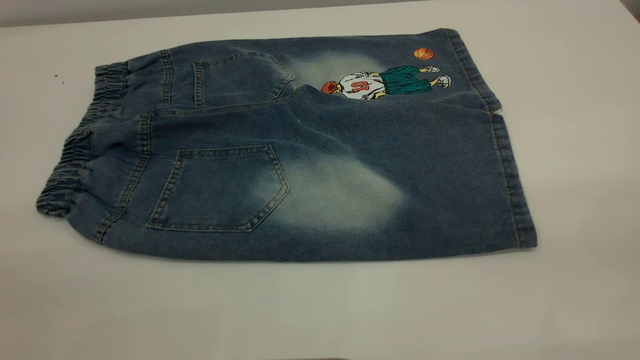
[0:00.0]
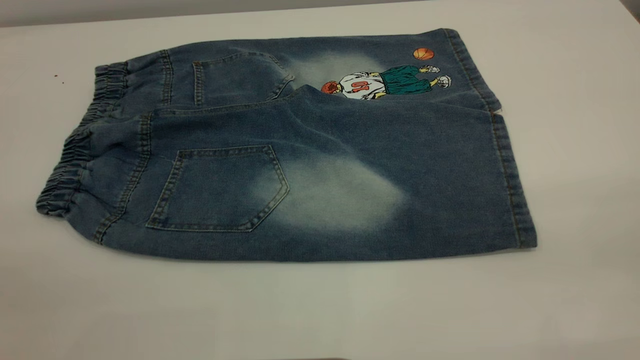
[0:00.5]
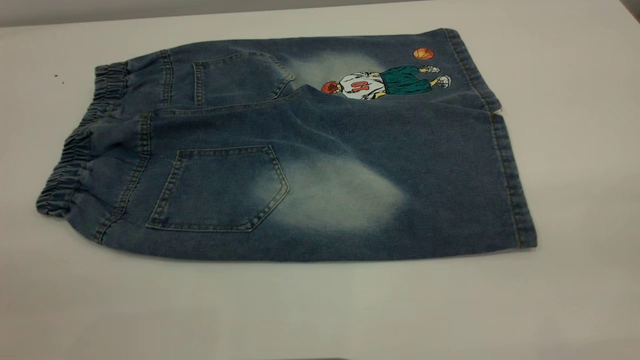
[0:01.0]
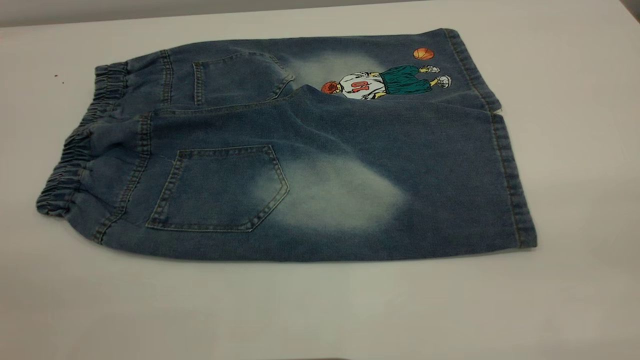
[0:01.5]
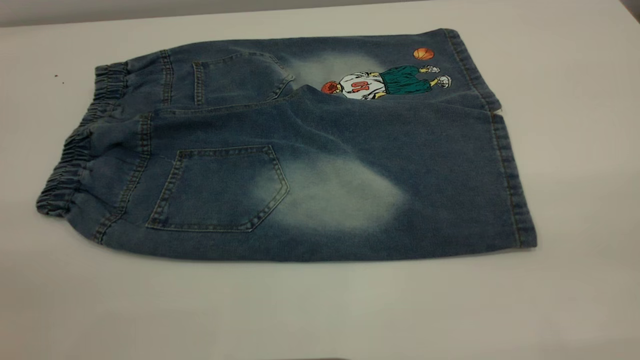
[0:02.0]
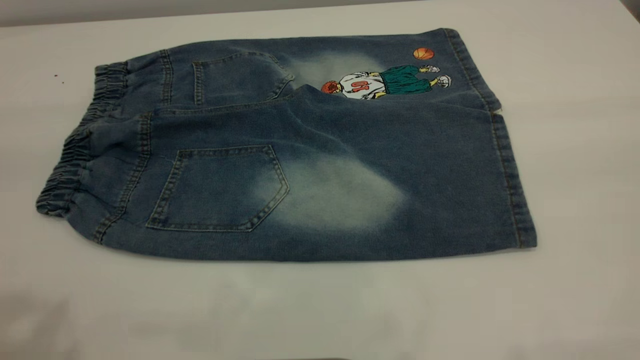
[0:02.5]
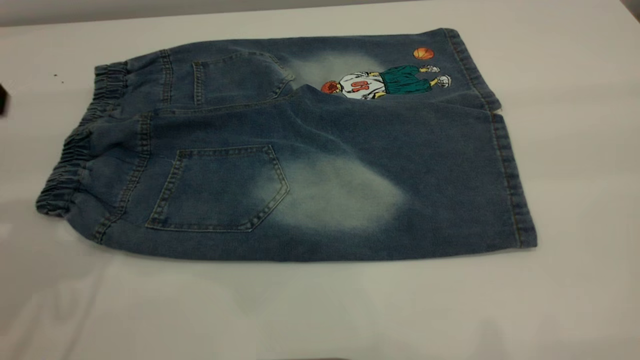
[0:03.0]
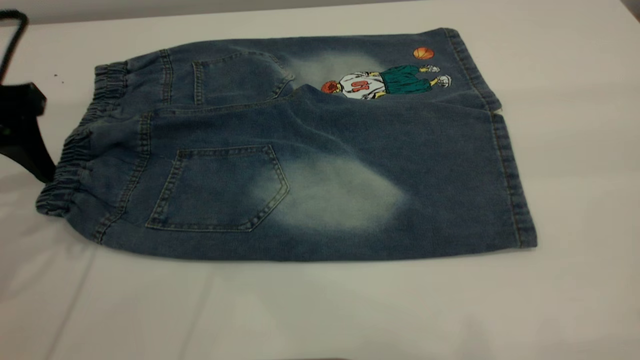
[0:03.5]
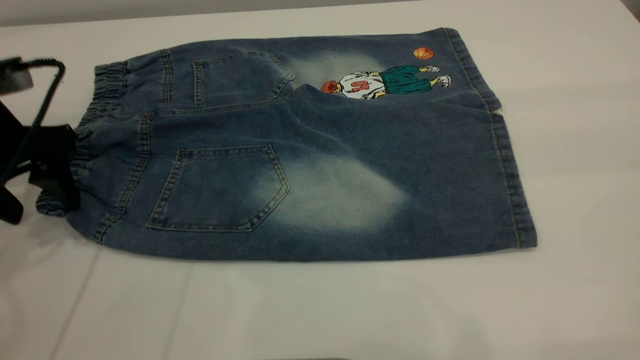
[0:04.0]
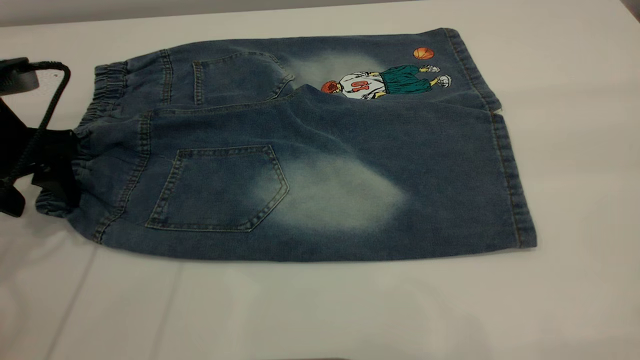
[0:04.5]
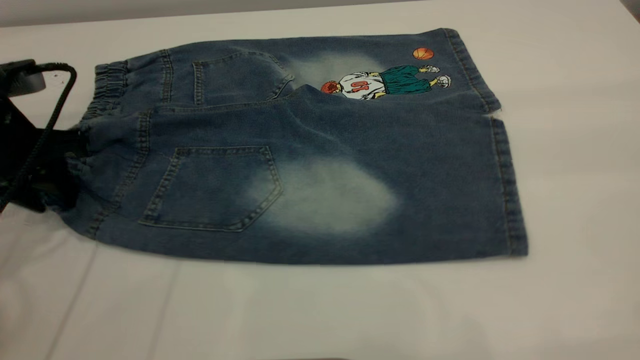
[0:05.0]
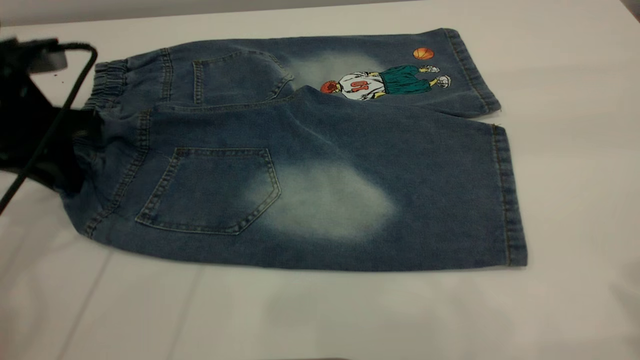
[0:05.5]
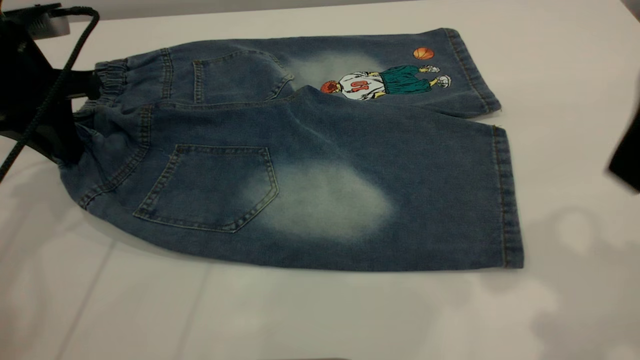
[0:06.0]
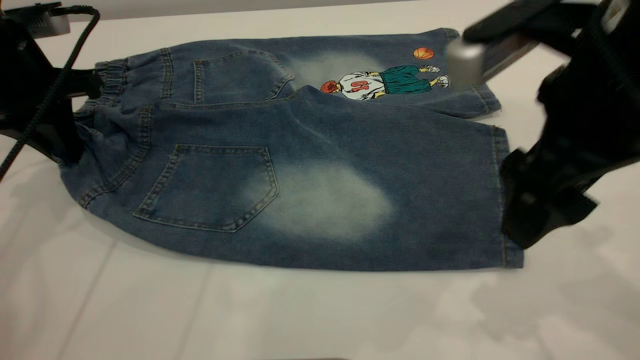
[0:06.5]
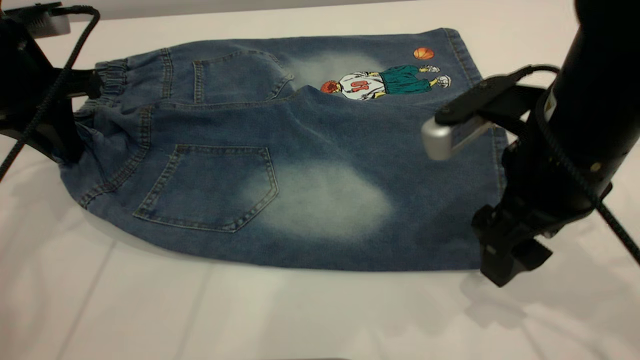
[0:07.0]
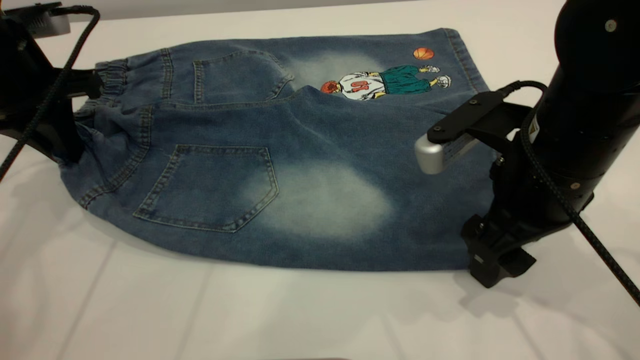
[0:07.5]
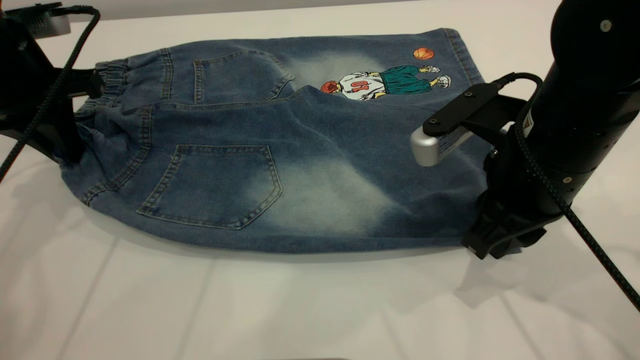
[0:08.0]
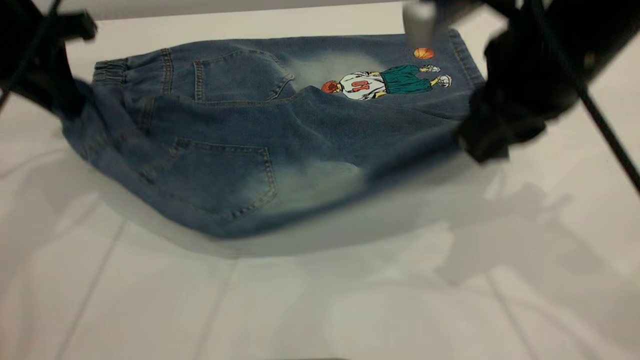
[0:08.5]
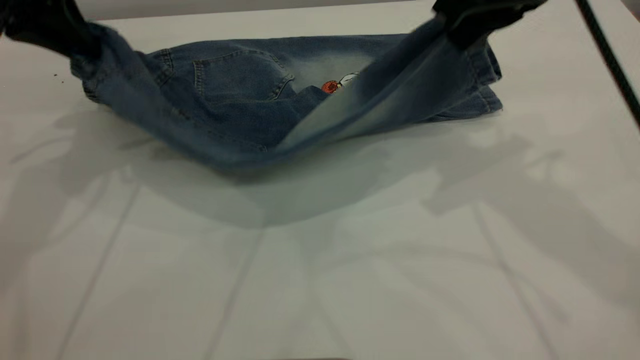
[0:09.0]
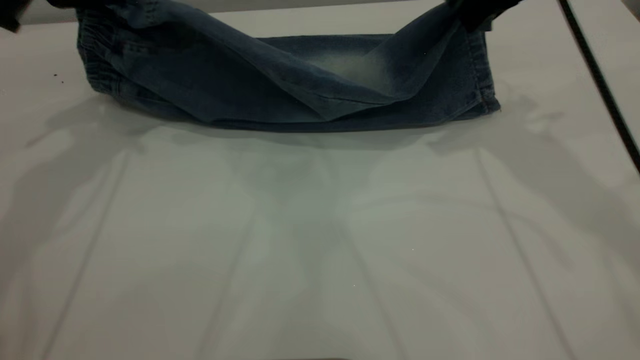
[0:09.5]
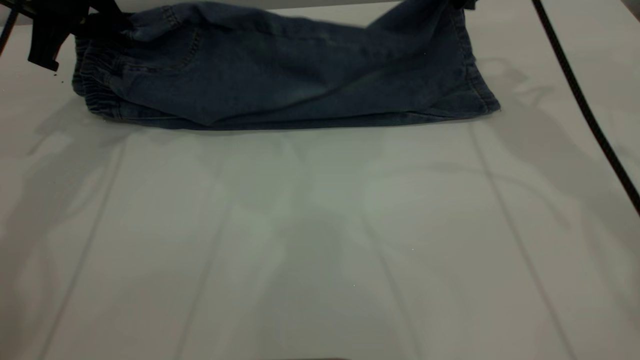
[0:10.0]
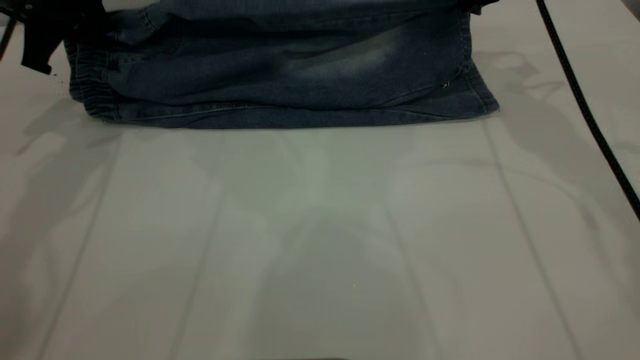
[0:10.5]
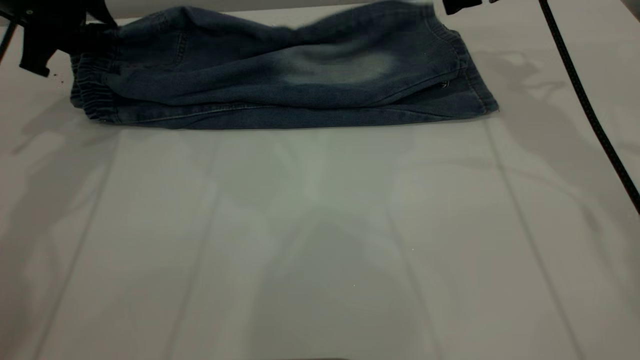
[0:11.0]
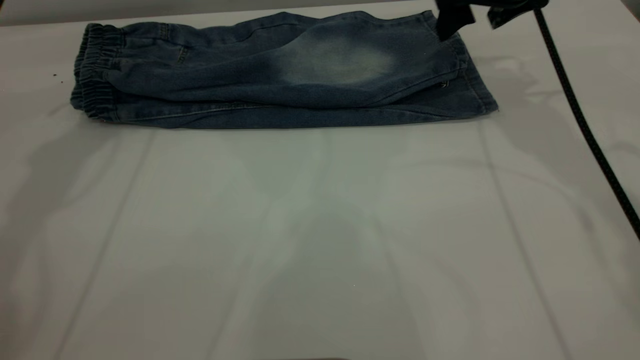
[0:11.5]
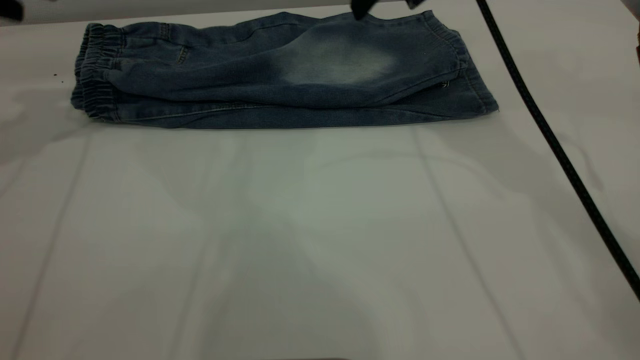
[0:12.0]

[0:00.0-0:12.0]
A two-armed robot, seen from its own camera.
Step, 0:00.0 to 0:11.5: Fold the bottom of the pants upward.
0:00.0 to 0:02.0: Neither gripper changes place.
0:02.0 to 0:04.0: The left gripper moves forward and downward, roughly 35 cm.
0:04.0 to 0:06.0: The left gripper shifts some 5 cm forward, and closes up; the right gripper travels forward, downward and to the left by approximately 15 cm.
0:06.0 to 0:08.0: The right gripper is displaced downward by some 15 cm, and closes.
0:08.0 to 0:10.0: The left gripper is displaced forward by roughly 5 cm; the right gripper goes about 20 cm forward and upward.
0:10.0 to 0:12.0: The right gripper is displaced to the left by some 10 cm, and opens. The left gripper travels to the left and upward by some 10 cm, and opens its fingers.

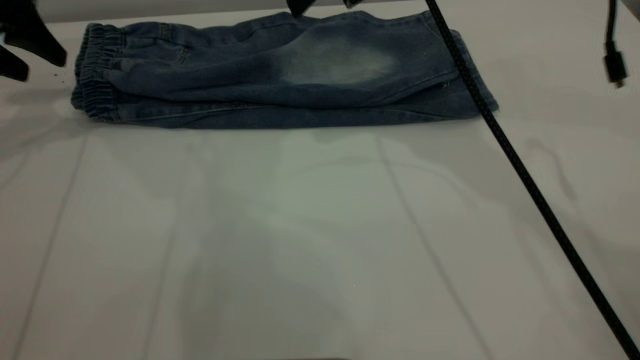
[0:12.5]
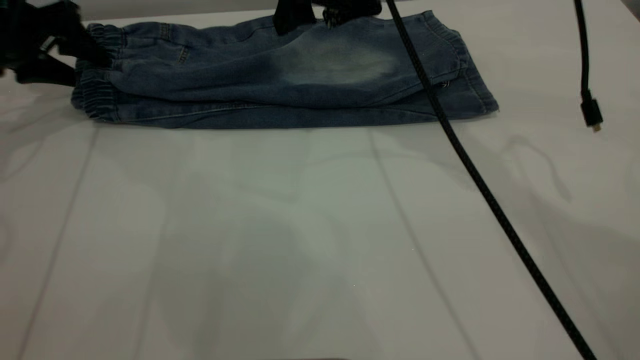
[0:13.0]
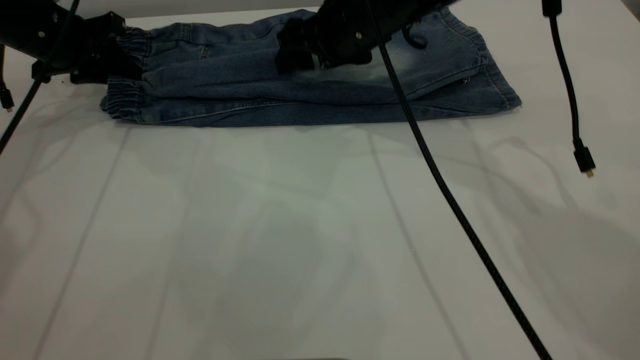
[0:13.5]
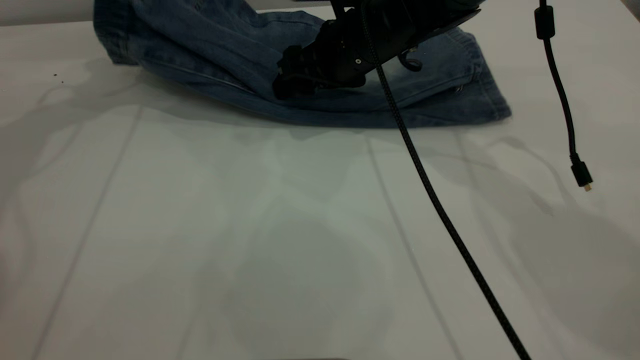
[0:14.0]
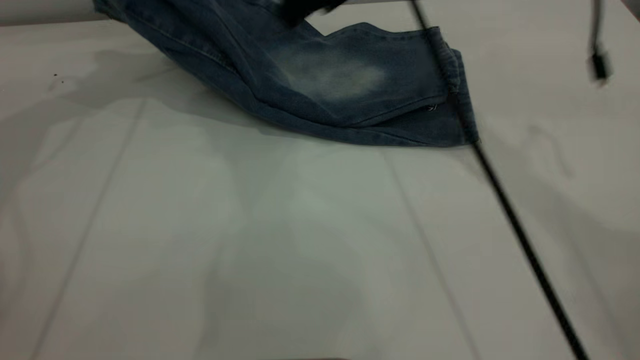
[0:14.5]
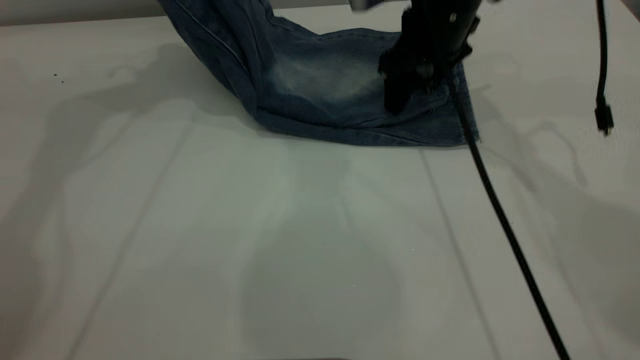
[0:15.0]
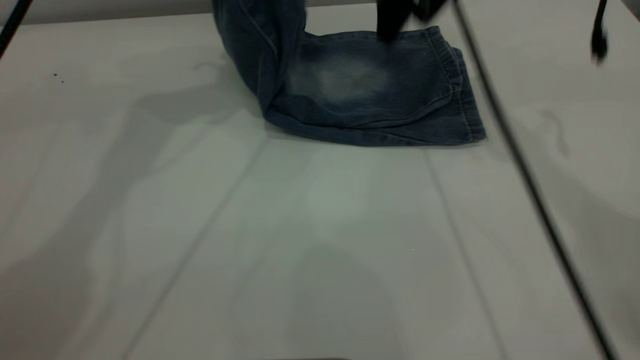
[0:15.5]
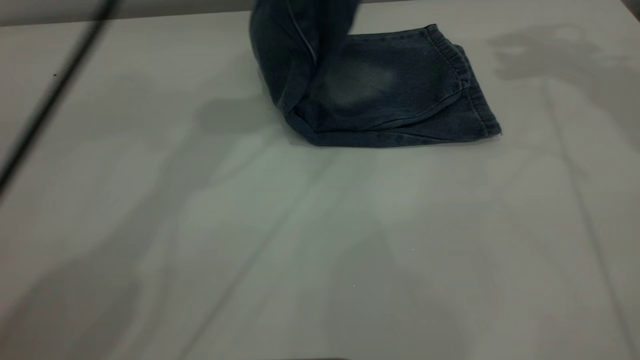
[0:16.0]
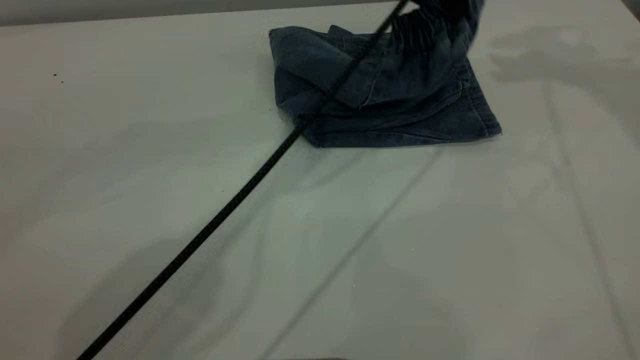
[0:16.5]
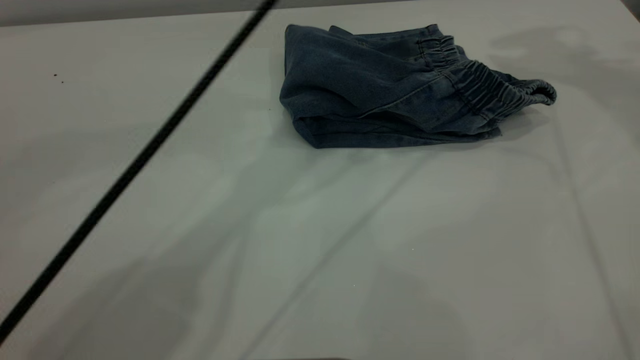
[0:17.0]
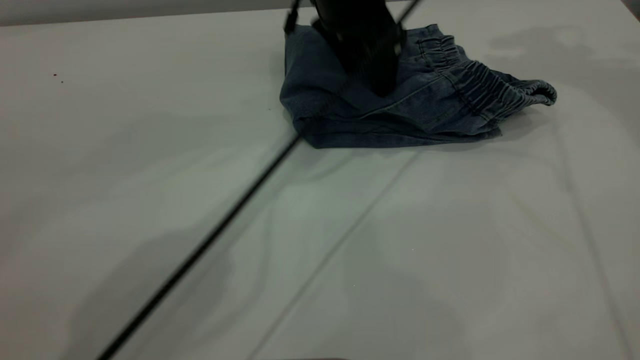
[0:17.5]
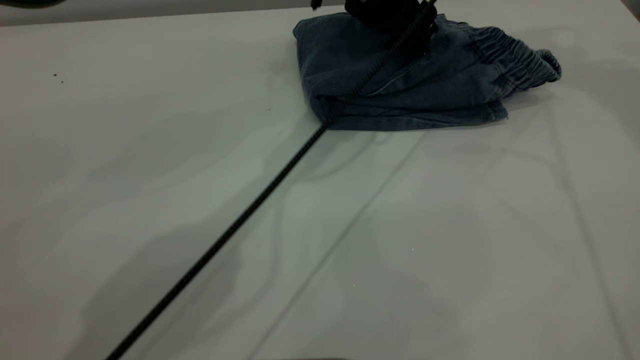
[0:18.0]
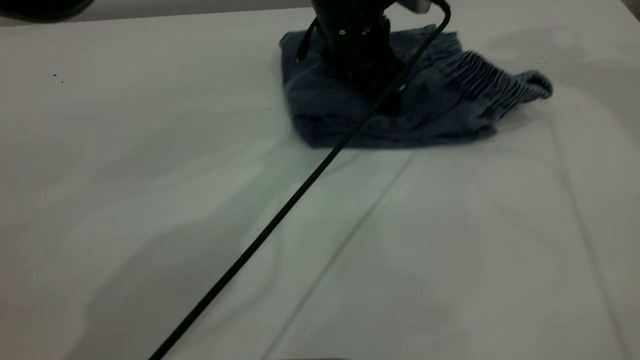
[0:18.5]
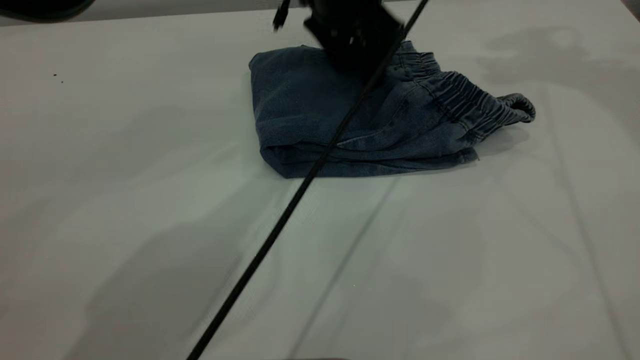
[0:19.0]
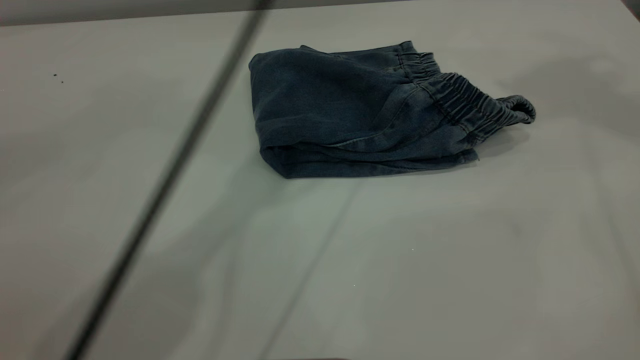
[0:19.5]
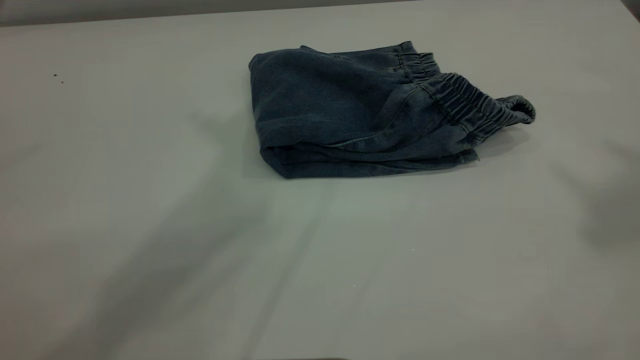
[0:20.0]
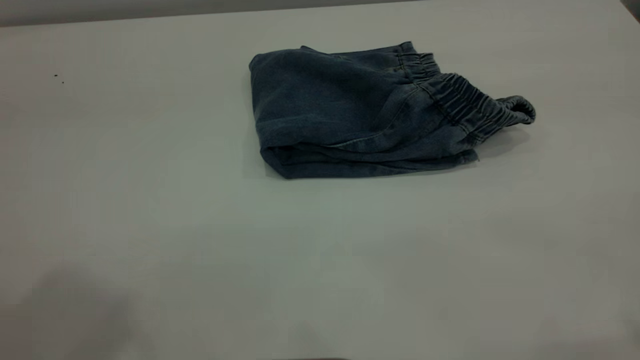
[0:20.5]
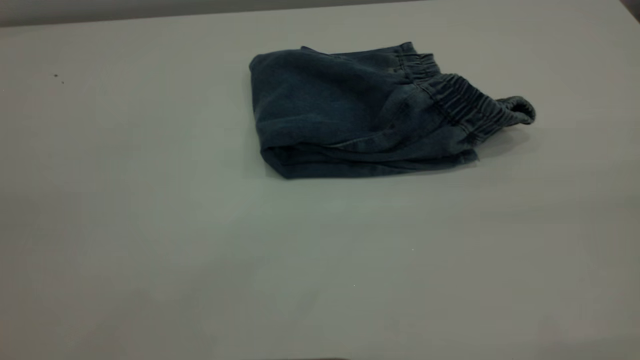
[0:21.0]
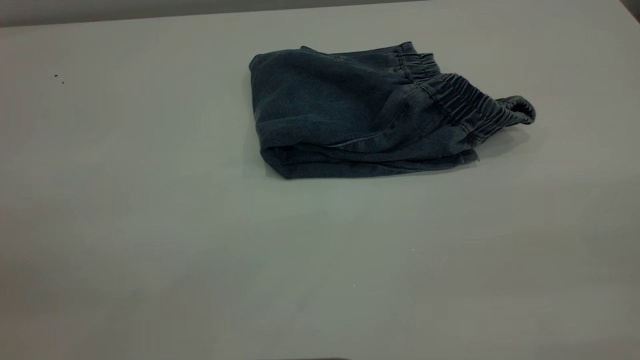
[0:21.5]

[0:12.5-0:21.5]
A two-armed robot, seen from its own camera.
Step, 0:12.5 to 0:17.0: Fold the pants from left to right.
0:12.5 to 0:14.5: The left gripper is displaced upward, to the right and forward by roughly 15 cm, and closes. The right gripper goes downward and returns, approximately 15 cm each way.
0:14.5 to 0:17.0: The left gripper is displaced to the right by roughly 30 cm, and opens; the right gripper is displaced to the right and upward by roughly 25 cm.
0:17.0 to 0:19.5: The left gripper reaches roughly 20 cm downward, then returns, while the right gripper is displaced upward and backward by some 20 cm.
0:19.5 to 0:21.5: The right gripper is displaced backward and downward by some 40 cm. Meanwhile the left gripper shifts some 50 cm backward and to the left.
